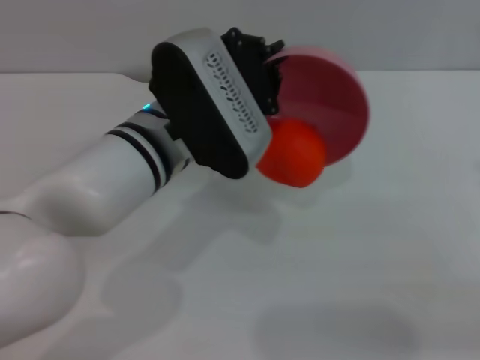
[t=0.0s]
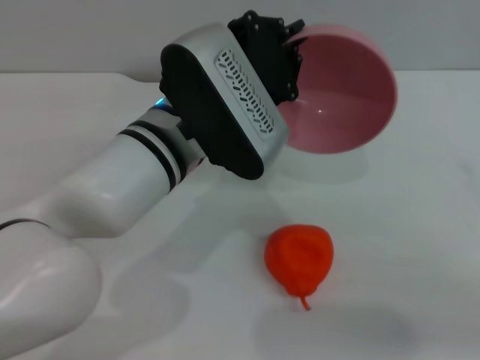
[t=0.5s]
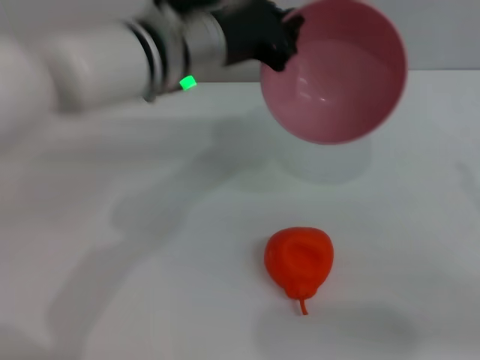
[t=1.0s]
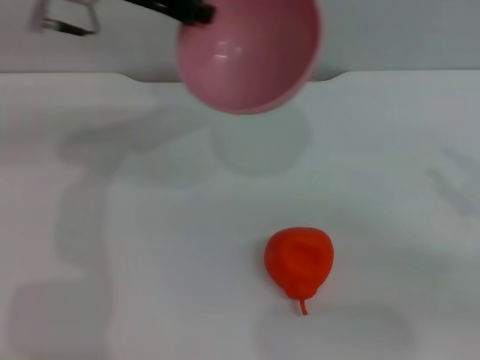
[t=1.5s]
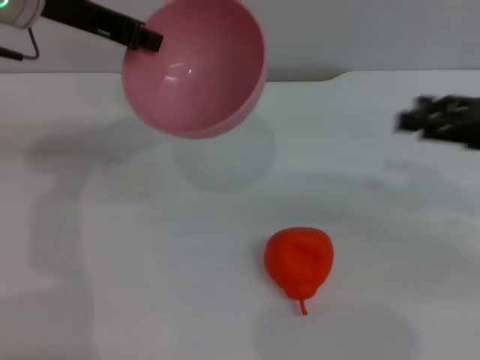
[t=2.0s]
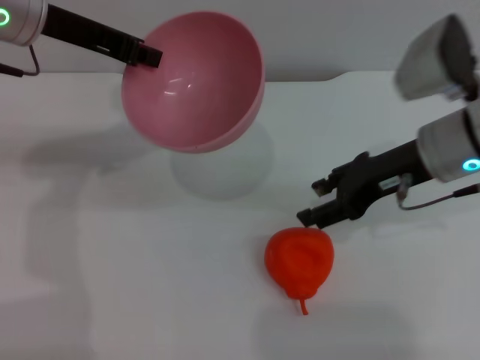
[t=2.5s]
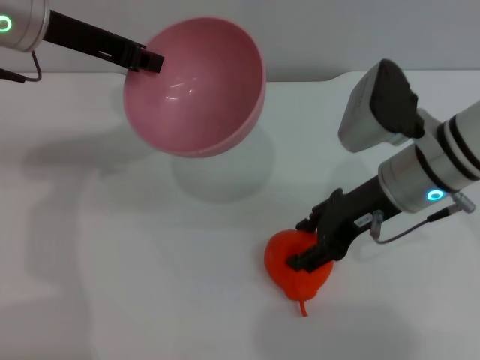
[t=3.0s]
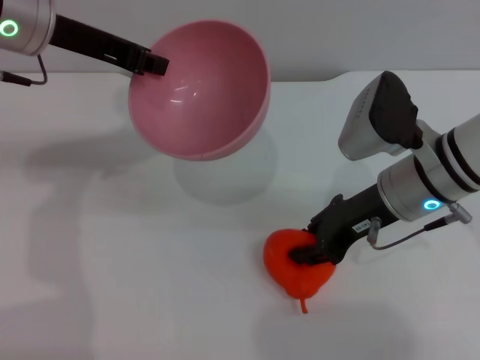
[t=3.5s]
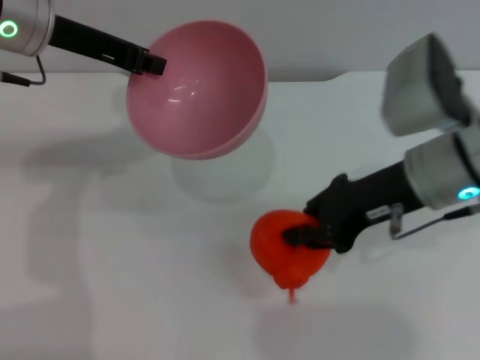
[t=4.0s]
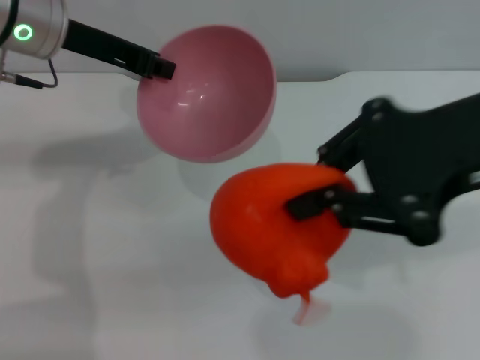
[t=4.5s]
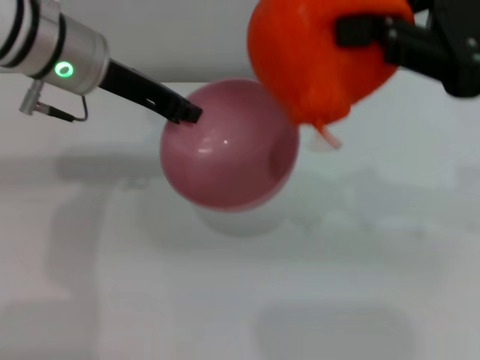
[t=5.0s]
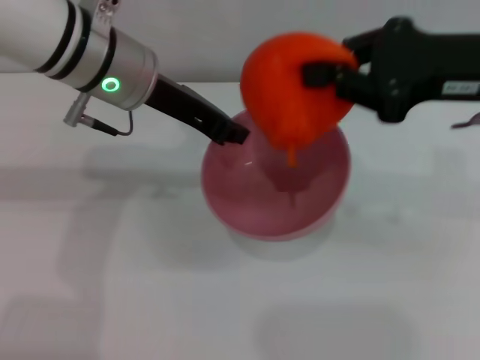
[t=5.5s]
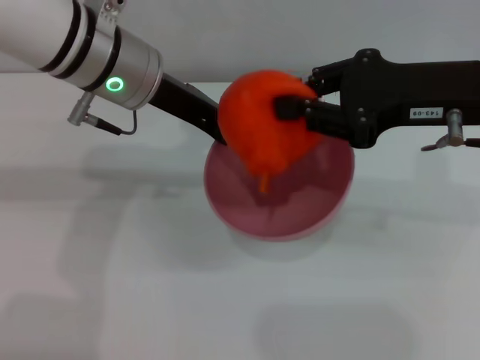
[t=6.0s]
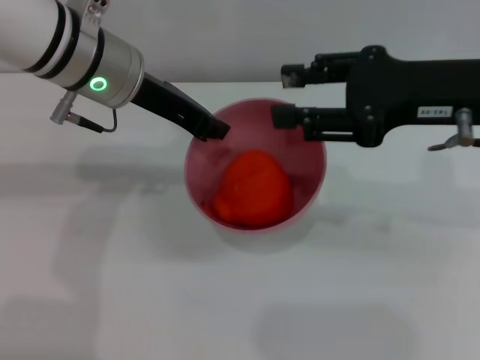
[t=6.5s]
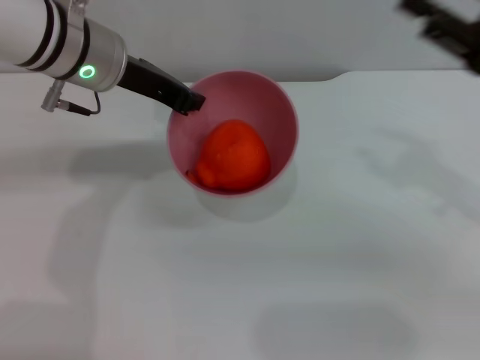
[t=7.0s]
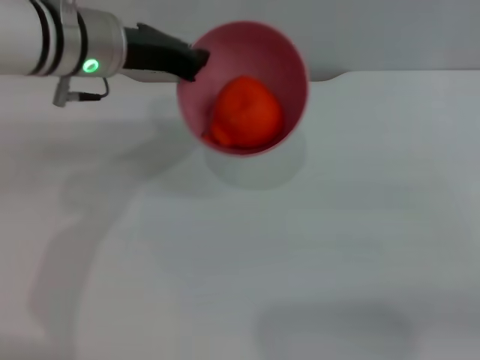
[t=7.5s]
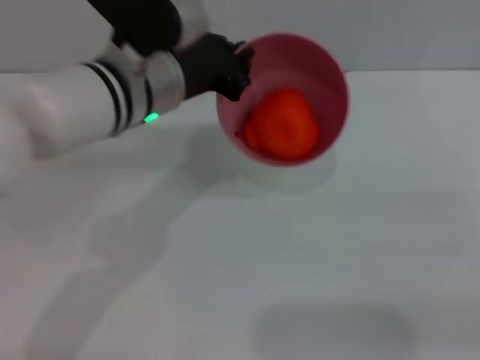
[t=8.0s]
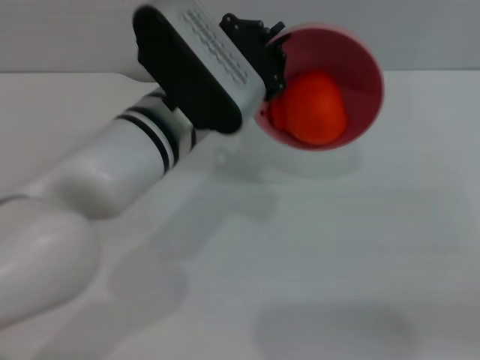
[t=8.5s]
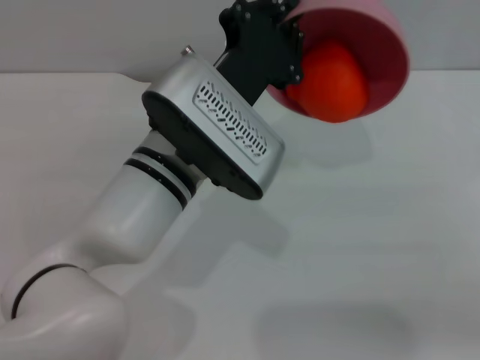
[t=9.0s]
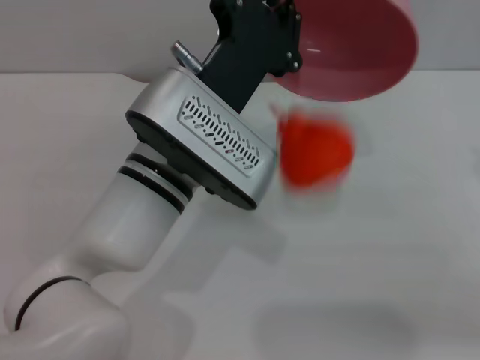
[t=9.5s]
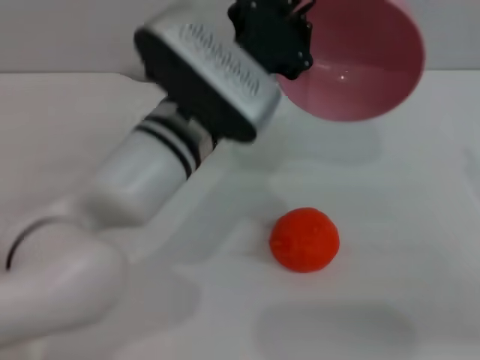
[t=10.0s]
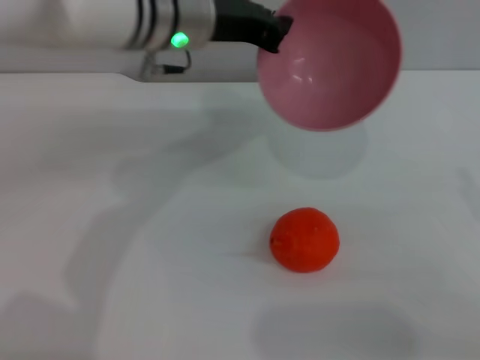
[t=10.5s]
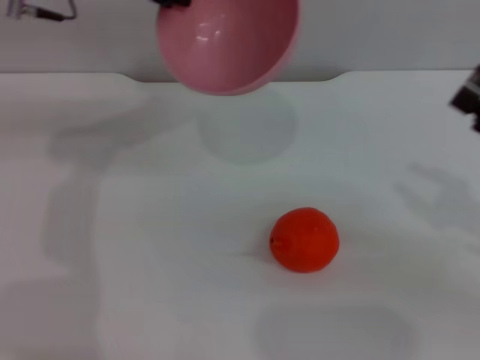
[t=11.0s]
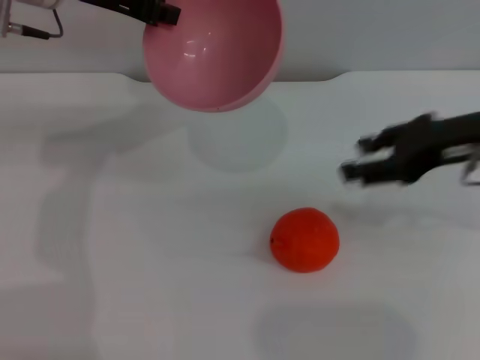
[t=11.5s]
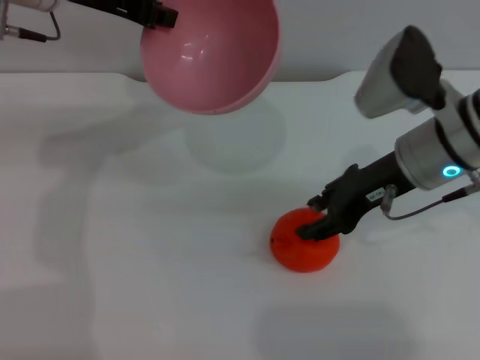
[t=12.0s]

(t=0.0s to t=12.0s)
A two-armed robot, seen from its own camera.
Task of the whole recording: put the orange into the pink bowl and pour it out repeatedly.
Step, t=1.0s - t=4.5s: Pick up the orange with the right gripper.
Step, t=5.0s - t=6.0s: Place the orange into the bowl.
Step, t=6.5s - t=9.5s: Pour the orange out of the bowl.
t=0.0s - t=2.0s: The right gripper moves forward, approximately 10 cm. The left gripper is displaced to the left, upward and forward by some 20 cm.
t=2.0s - t=4.0s: The right gripper shifts approximately 15 cm to the left, and closes up.
t=4.0s - t=6.0s: The right gripper is displaced upward by approximately 5 cm. The left gripper goes some 10 cm to the right.
t=6.0s - t=8.0s: The left gripper ends up roughly 5 cm from where it was. Meanwhile the right gripper is displaced to the right, downward and backward by some 20 cm, and opens up.
t=8.0s - t=10.0s: The left gripper travels to the right by some 5 cm.
t=10.0s - t=12.0s: The left gripper moves to the left, upward and forward, about 20 cm; the right gripper goes roughly 20 cm to the left and forward.

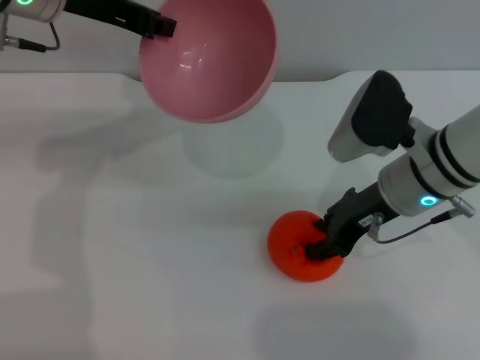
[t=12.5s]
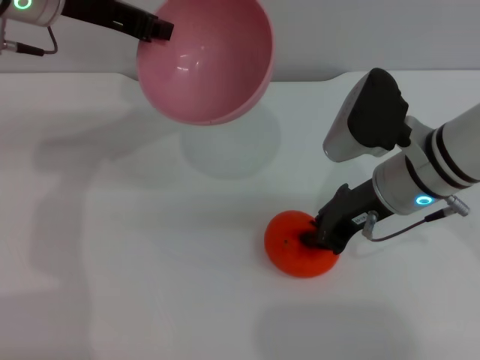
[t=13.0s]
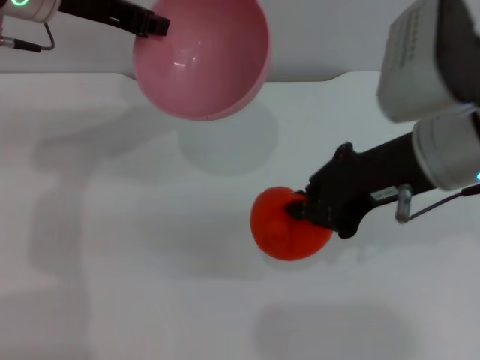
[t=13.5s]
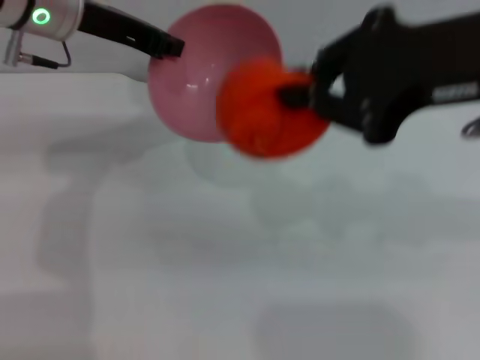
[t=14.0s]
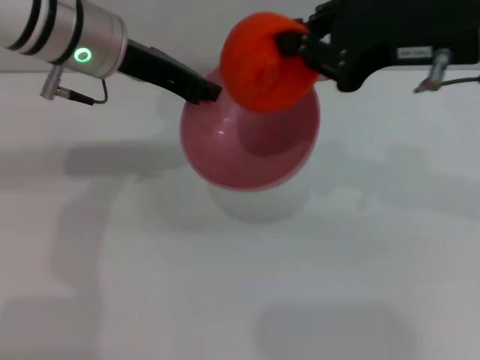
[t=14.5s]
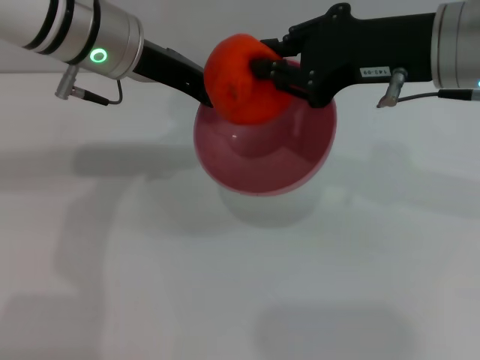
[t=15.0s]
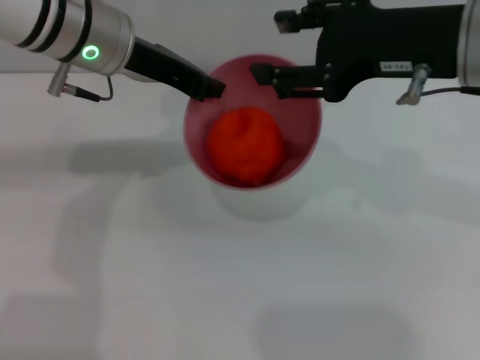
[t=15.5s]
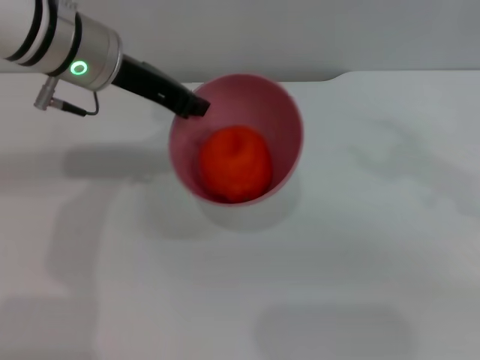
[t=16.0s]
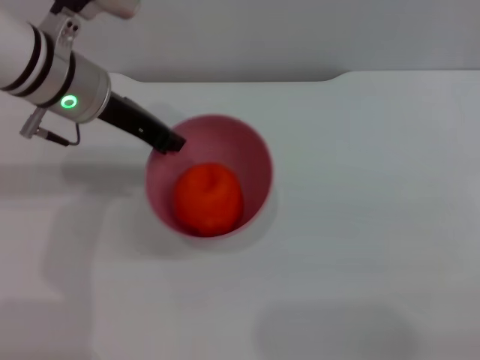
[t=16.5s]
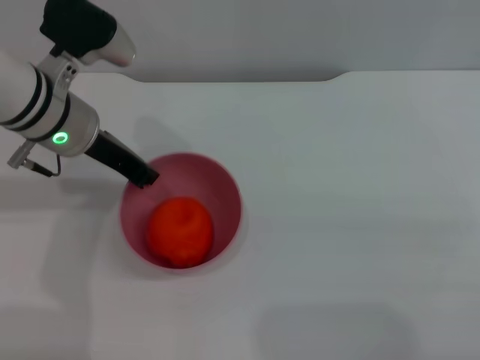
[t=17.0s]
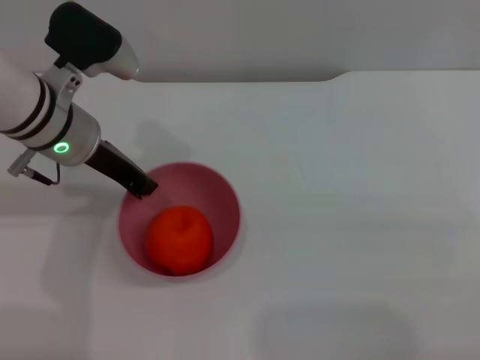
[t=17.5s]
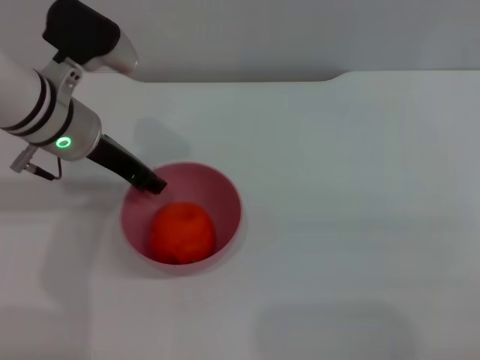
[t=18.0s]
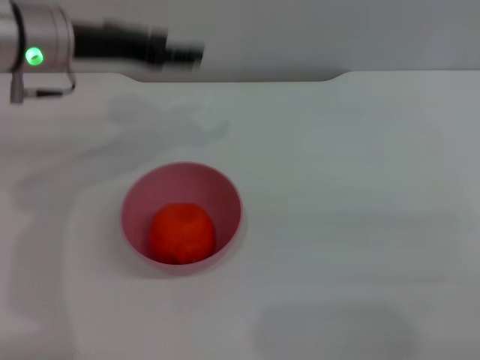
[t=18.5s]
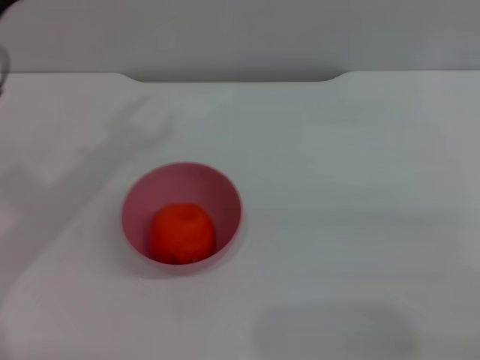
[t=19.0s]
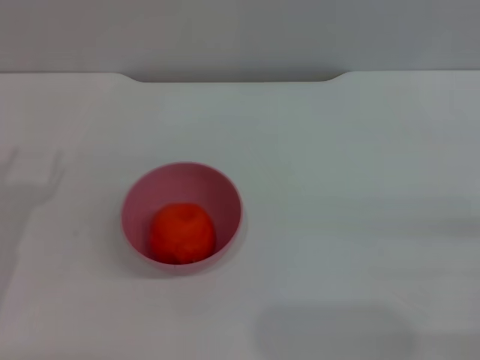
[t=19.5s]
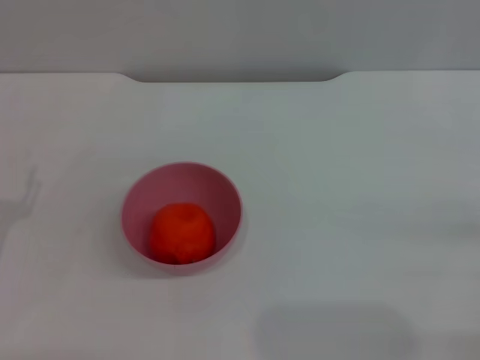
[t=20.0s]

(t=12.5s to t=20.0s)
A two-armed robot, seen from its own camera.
Task of the whole recording: put the orange into the pink bowl and pour it out repeatedly.
Step, t=14.0s - t=15.5s: Place the orange into the bowl.
Step, t=16.0s - t=18.0s: Place the bowl on the table.
t=12.5s - t=14.5s: The left gripper shifts by about 5 cm; the right gripper moves upward, some 15 cm, and closes its fingers.
t=14.5s - t=16.5s: The right gripper heads to the right, downward and backward, covering roughly 25 cm, and opens its fingers.
t=16.5s - t=18.0s: The grippers make only small movements.
t=18.0s - t=20.0s: The left gripper shifts roughly 25 cm backward, to the left and downward, and opens.
